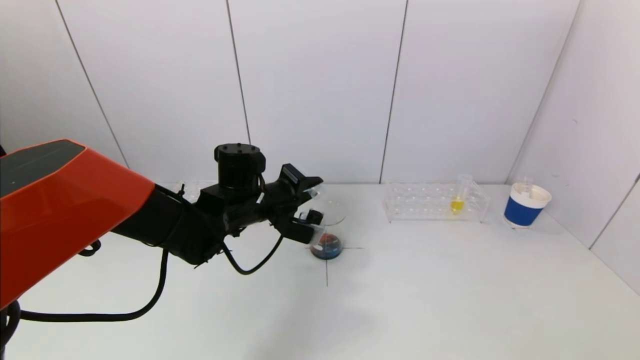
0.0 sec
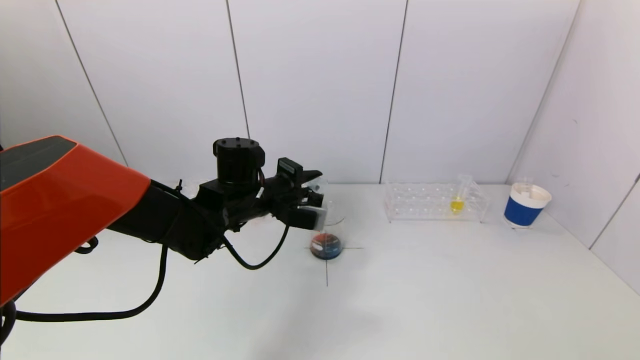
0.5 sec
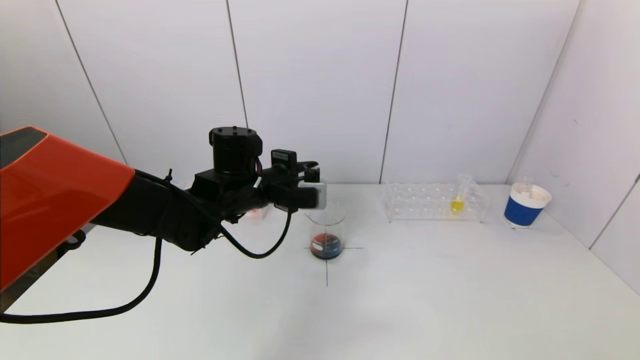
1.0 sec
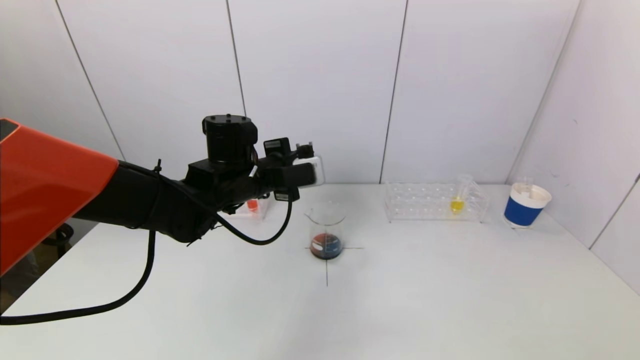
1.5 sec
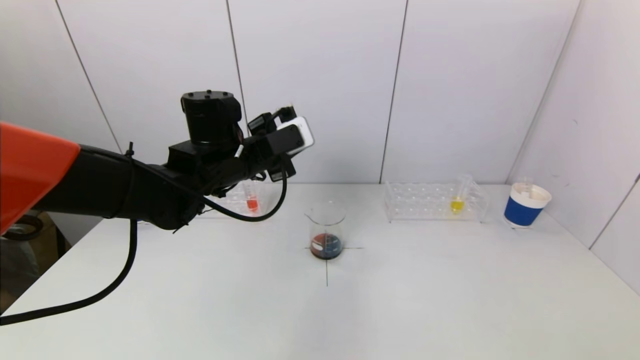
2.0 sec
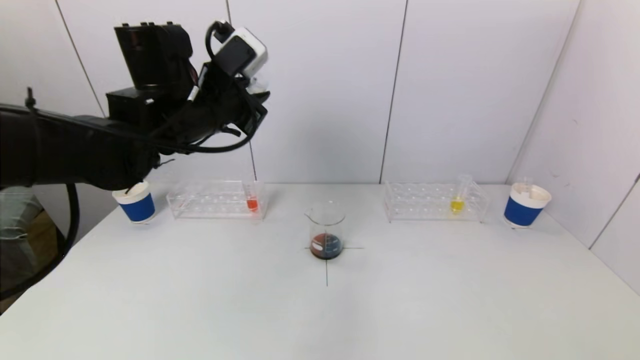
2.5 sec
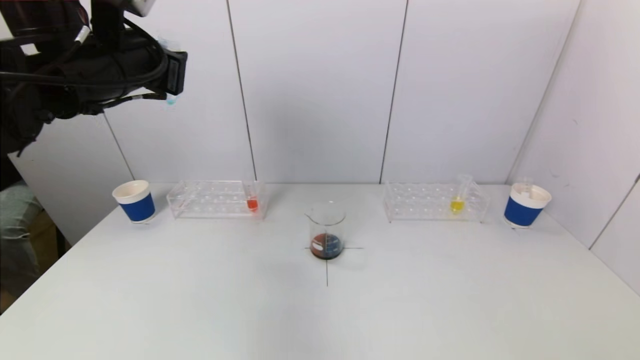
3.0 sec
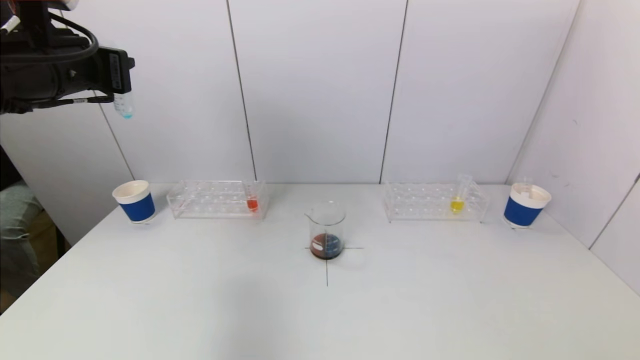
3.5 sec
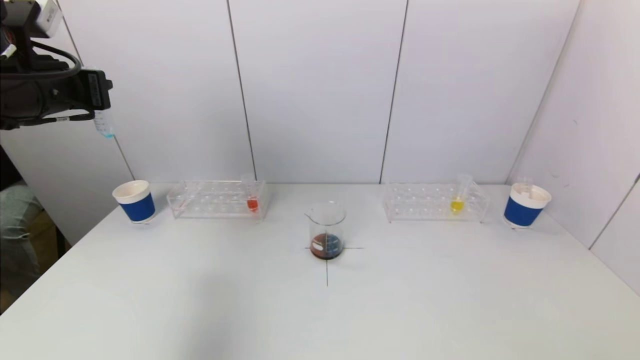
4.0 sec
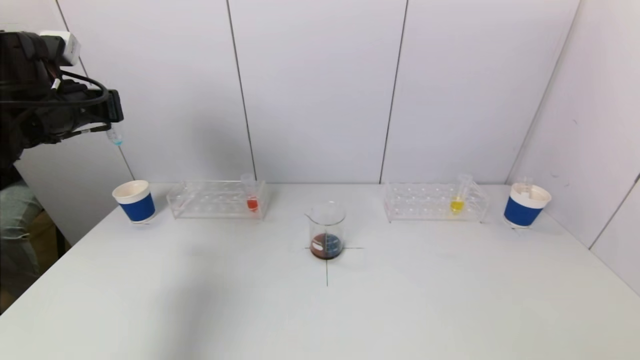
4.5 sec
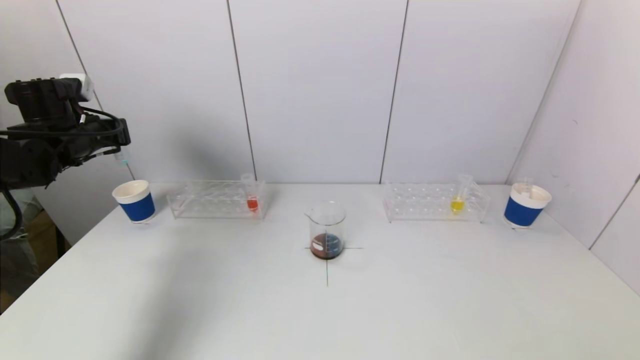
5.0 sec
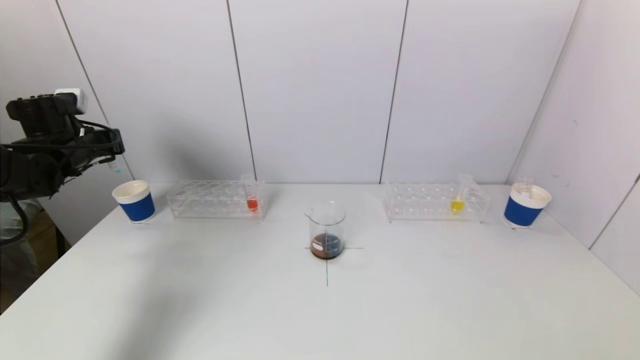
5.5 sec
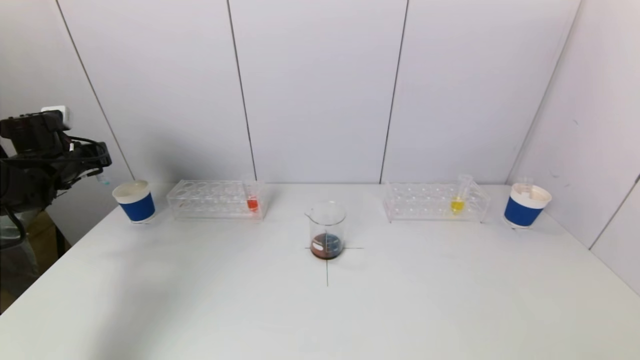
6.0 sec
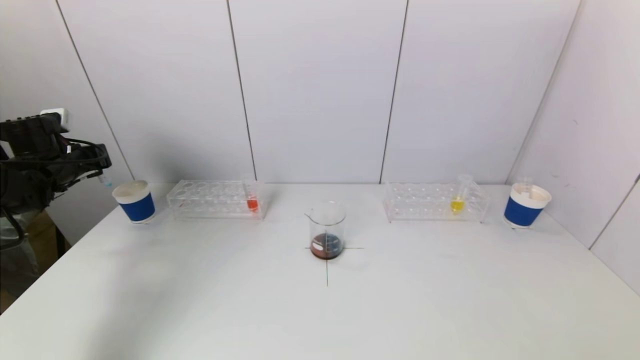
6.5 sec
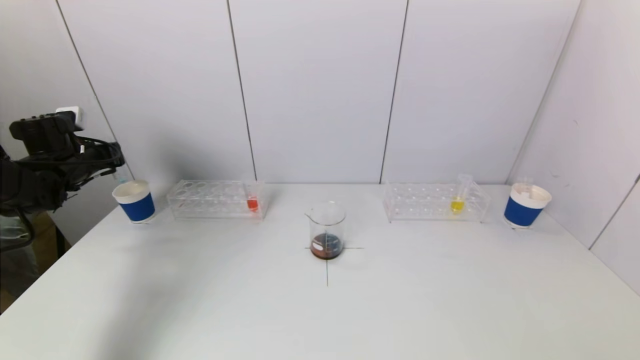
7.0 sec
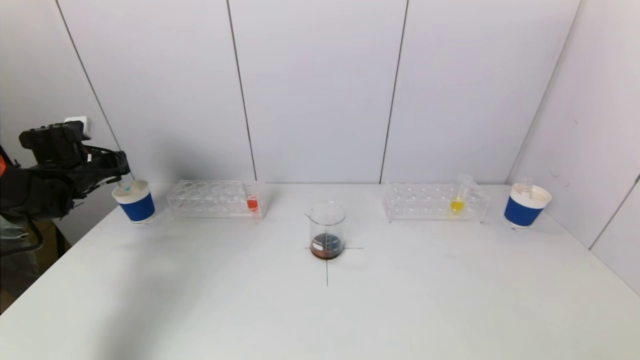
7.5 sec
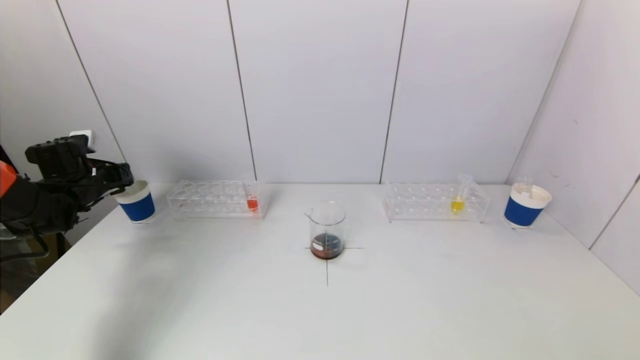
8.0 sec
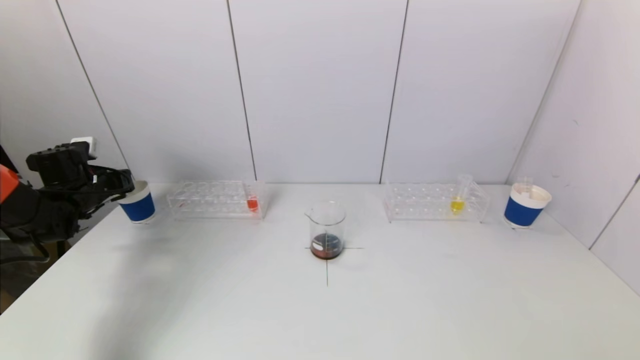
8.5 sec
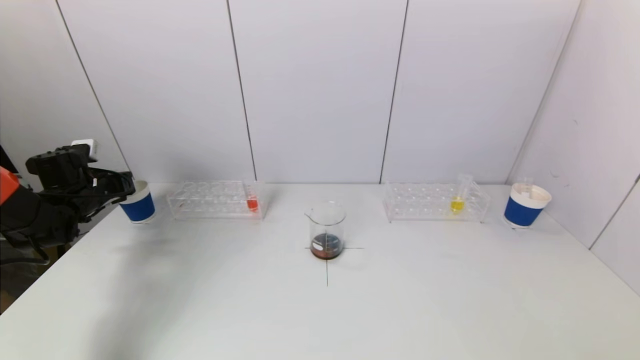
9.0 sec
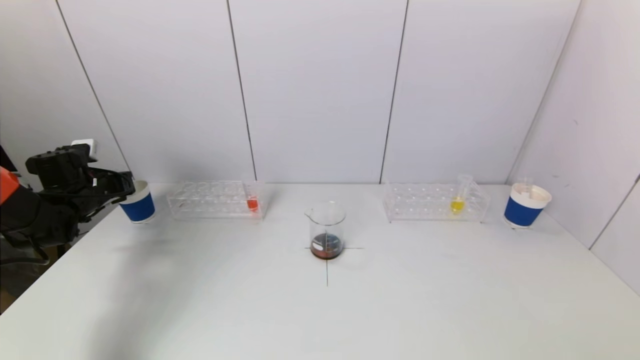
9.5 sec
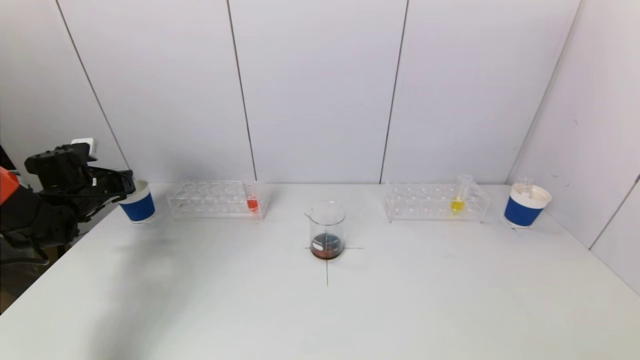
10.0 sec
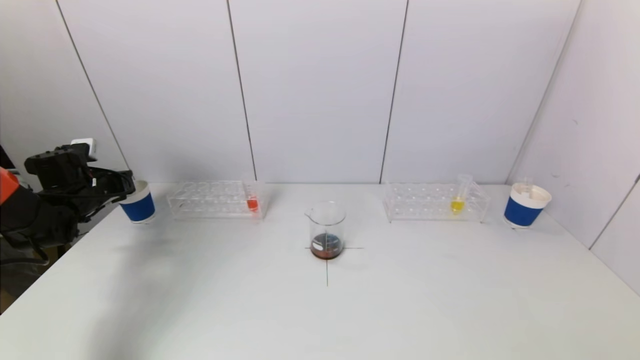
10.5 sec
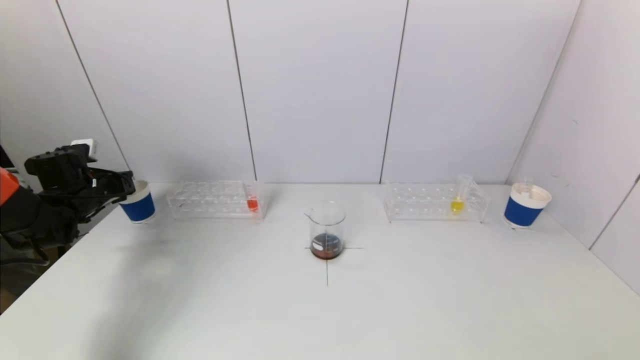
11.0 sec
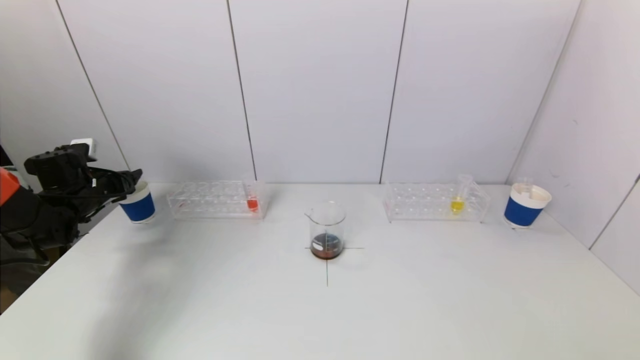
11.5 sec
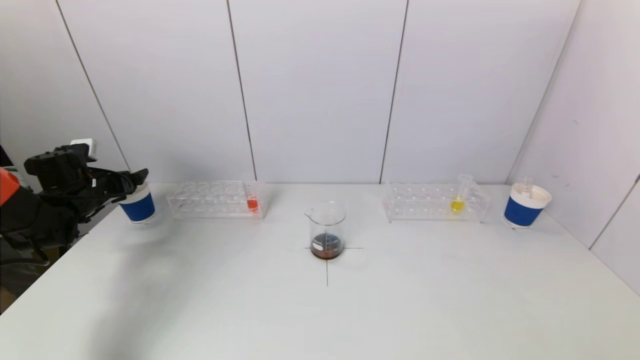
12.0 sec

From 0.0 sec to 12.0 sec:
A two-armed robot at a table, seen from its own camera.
Task of the whole recording: pick up a test tube with pigment on left test tube rack and a test tube with pigment on right test tube rack by grippers and pour them into the beaker.
From 0.0 sec to 2.0 sec: The left gripper moves upward, approximately 10 cm.
From 2.0 sec to 4.0 sec: The left gripper moves to the left and upward, some 20 cm.
From 4.0 sec to 6.0 sec: The left gripper goes about 25 cm downward, to the left and forward.
From 6.0 sec to 8.0 sec: The left gripper changes place by approximately 5 cm.
From 8.0 sec to 10.0 sec: The grippers move only a little.

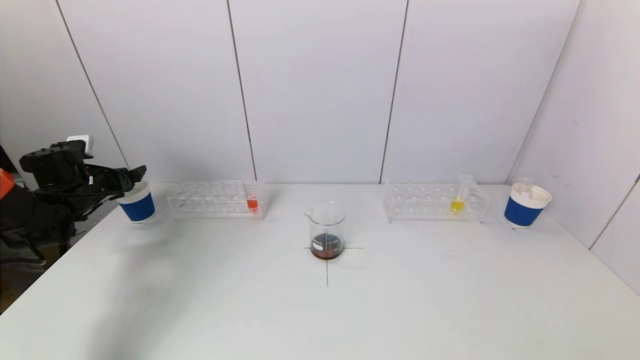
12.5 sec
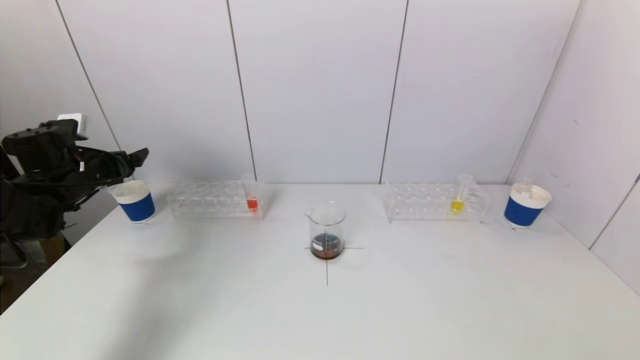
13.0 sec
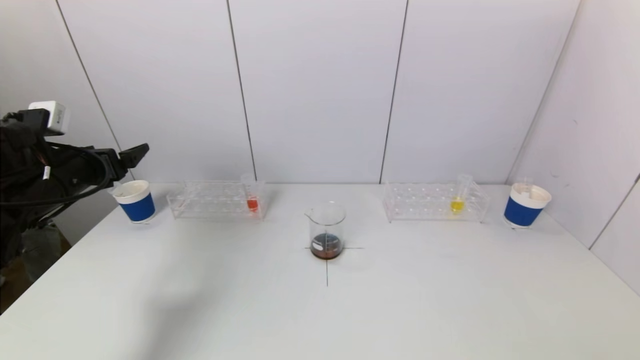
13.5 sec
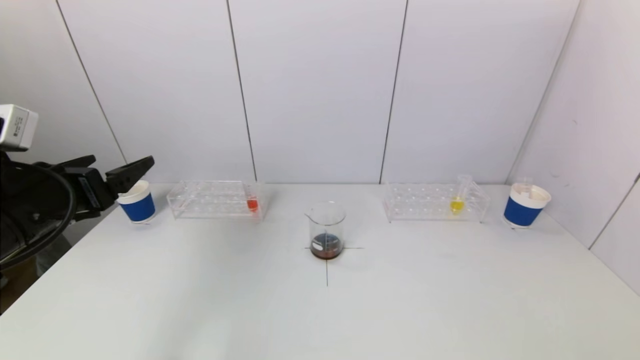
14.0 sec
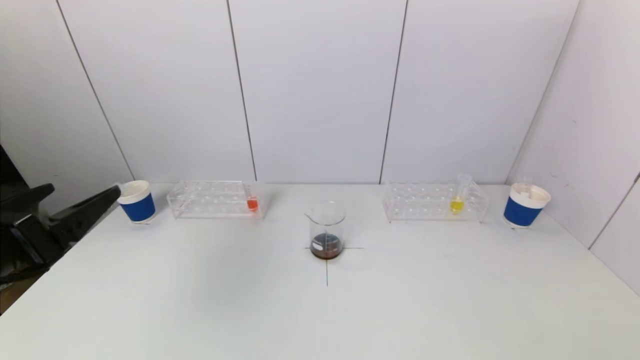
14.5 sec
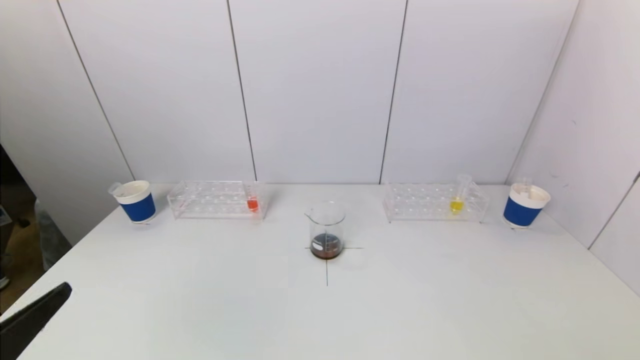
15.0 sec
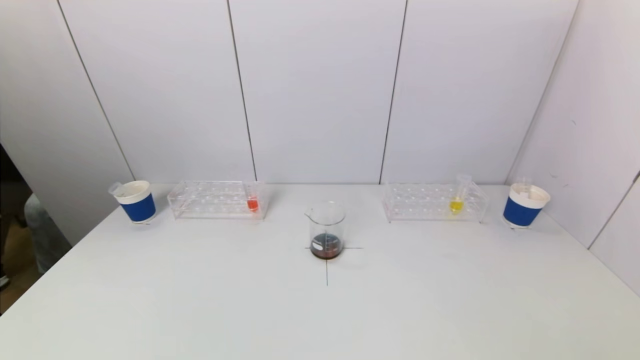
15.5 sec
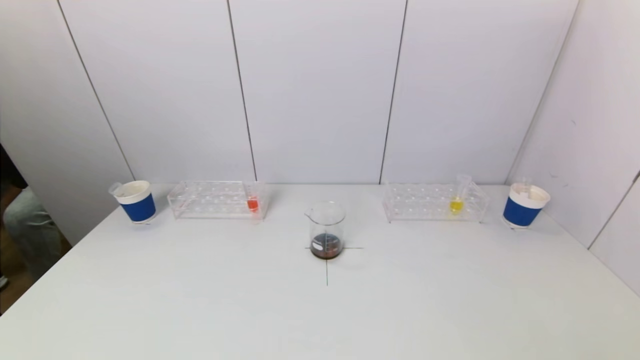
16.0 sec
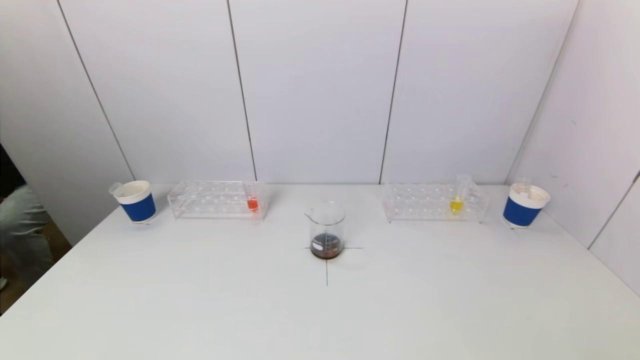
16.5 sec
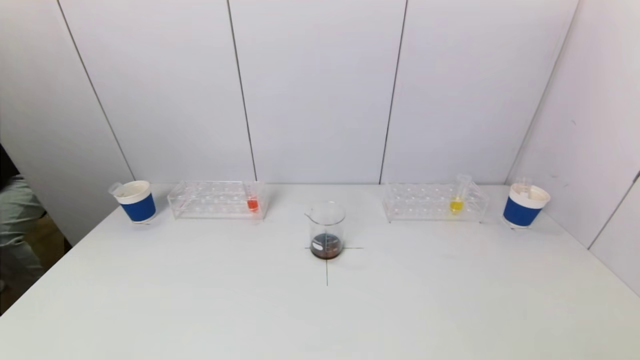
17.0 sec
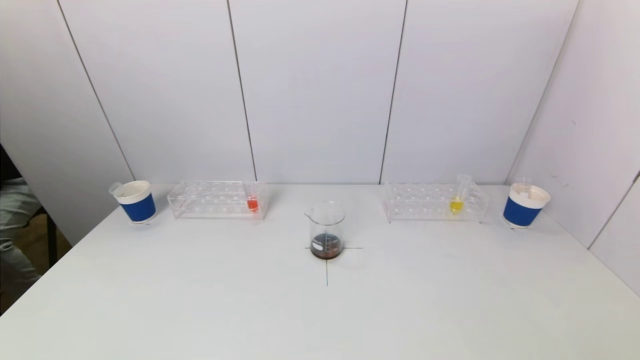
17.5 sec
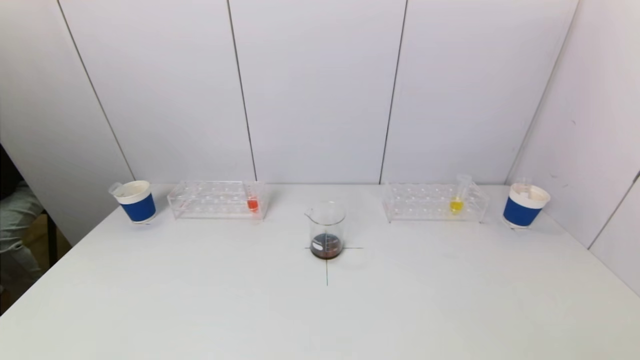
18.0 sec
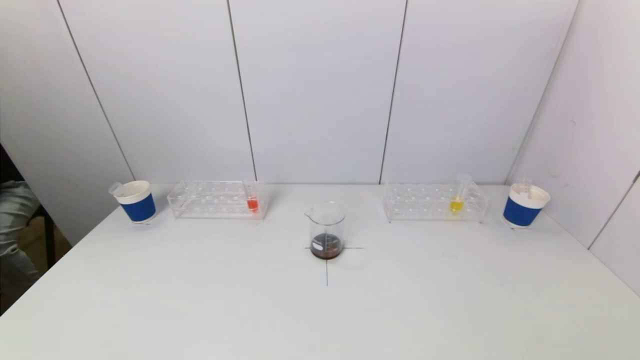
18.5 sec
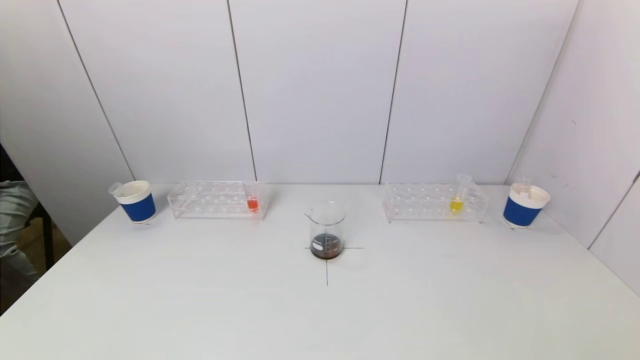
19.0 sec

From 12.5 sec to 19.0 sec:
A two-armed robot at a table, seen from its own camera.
Task of the whole recording: pick up a test tube with pigment on left test tube rack and a test tube with pigment on right test tube rack by grippers and pour them into the beaker.
From 12.5 sec to 14.5 sec: The left gripper moves backward and to the right, about 30 cm.
From 14.5 sec to 17.0 sec: The left gripper heads backward and downward, covering roughly 20 cm.
